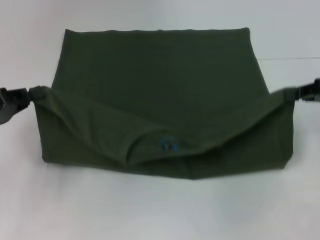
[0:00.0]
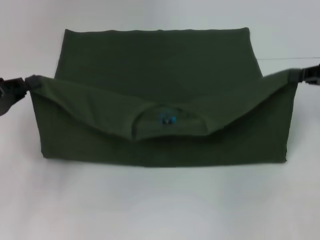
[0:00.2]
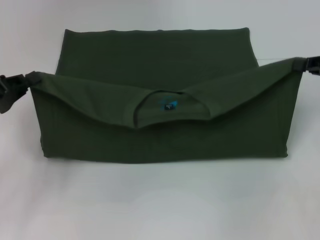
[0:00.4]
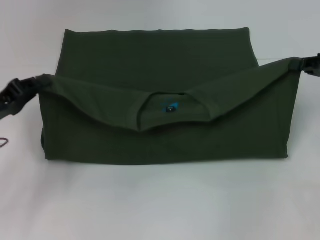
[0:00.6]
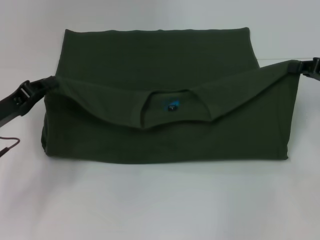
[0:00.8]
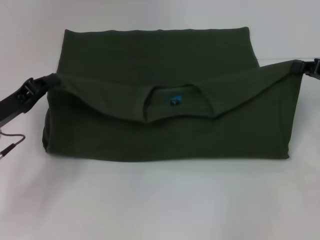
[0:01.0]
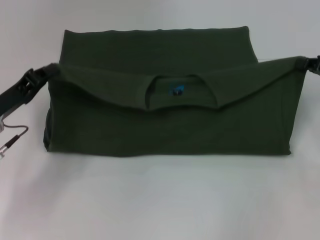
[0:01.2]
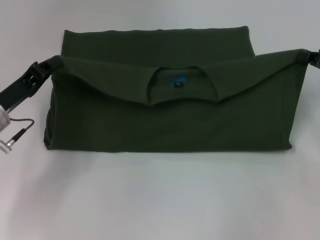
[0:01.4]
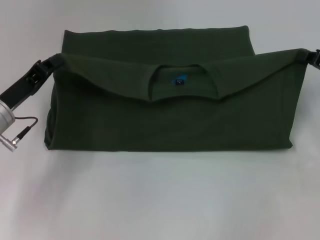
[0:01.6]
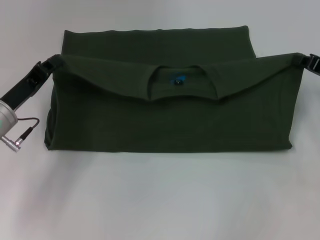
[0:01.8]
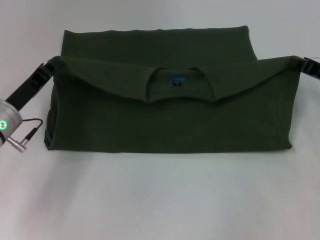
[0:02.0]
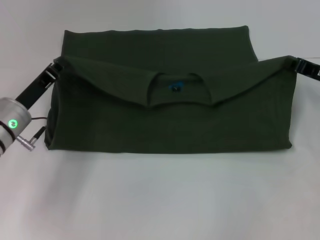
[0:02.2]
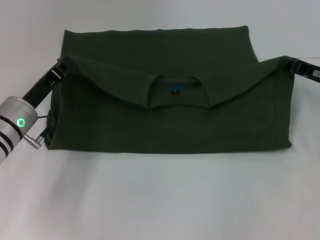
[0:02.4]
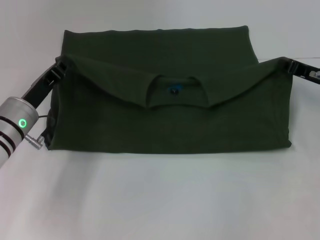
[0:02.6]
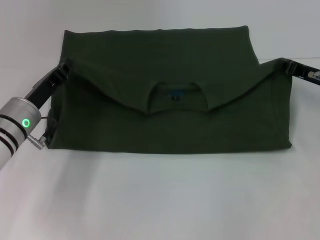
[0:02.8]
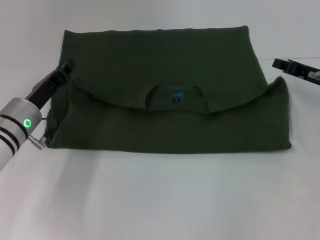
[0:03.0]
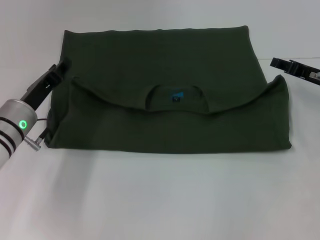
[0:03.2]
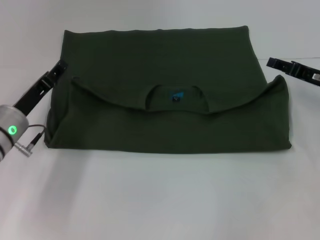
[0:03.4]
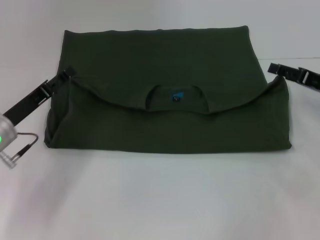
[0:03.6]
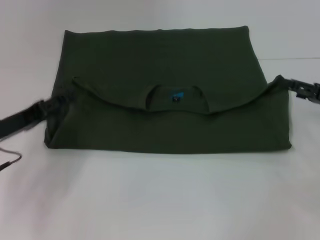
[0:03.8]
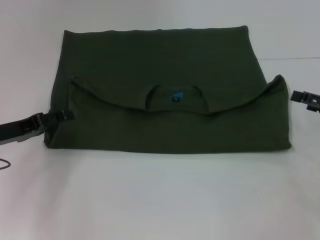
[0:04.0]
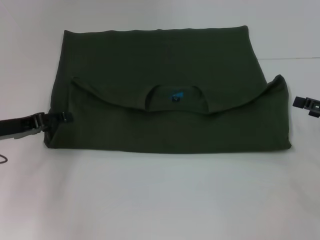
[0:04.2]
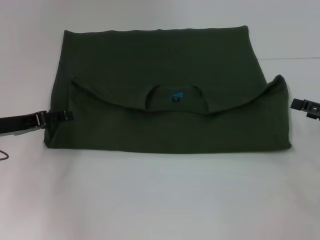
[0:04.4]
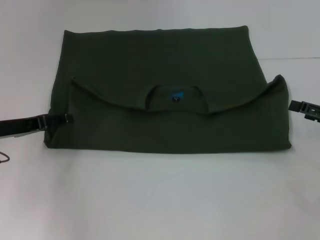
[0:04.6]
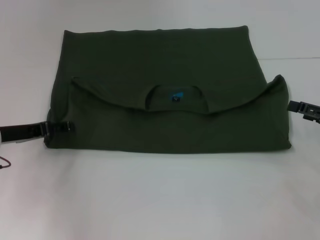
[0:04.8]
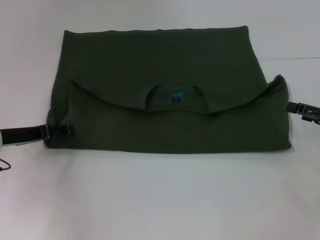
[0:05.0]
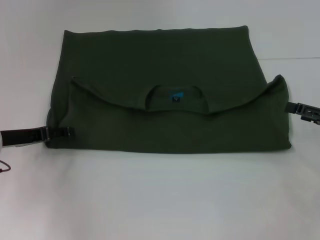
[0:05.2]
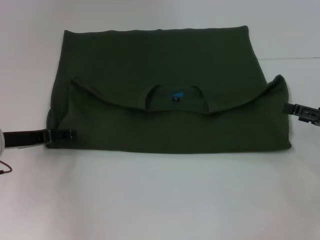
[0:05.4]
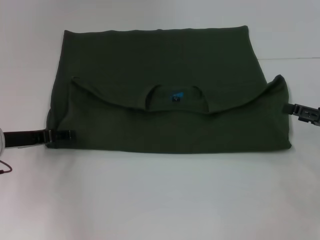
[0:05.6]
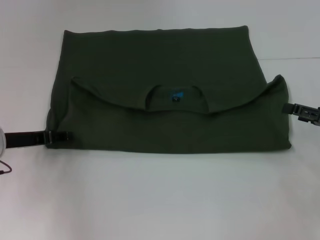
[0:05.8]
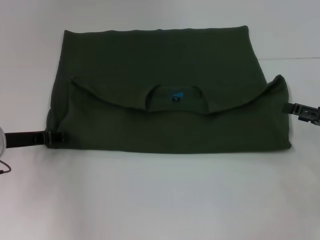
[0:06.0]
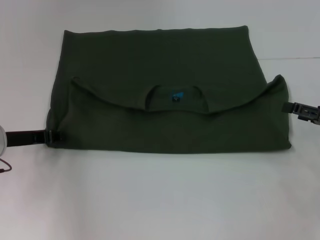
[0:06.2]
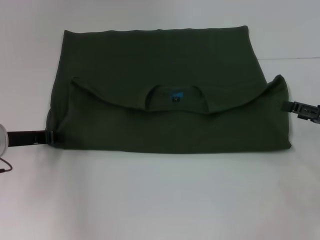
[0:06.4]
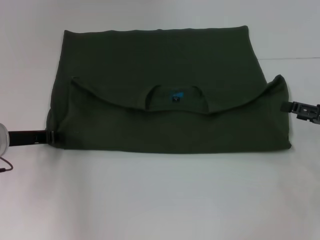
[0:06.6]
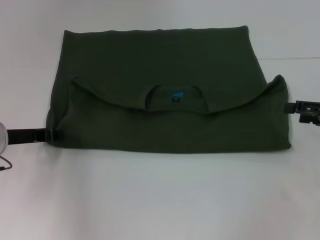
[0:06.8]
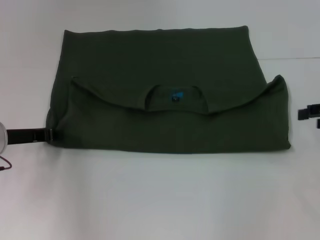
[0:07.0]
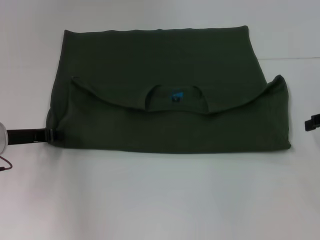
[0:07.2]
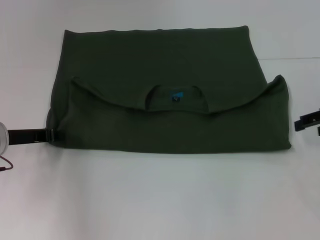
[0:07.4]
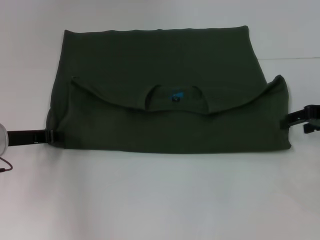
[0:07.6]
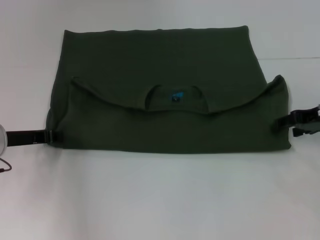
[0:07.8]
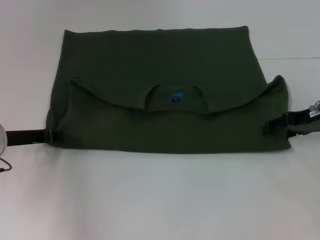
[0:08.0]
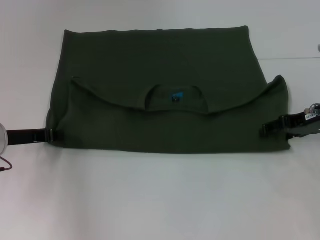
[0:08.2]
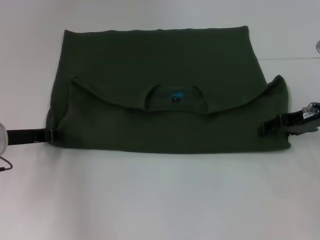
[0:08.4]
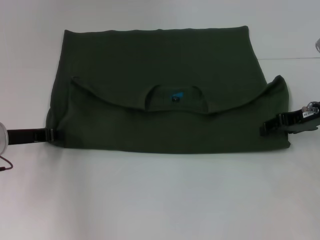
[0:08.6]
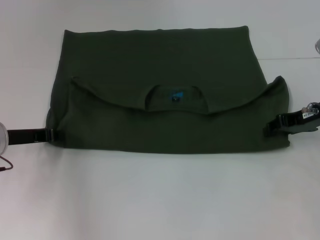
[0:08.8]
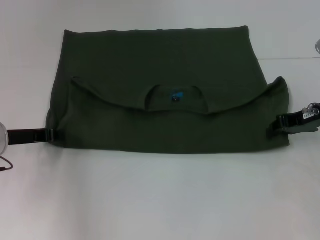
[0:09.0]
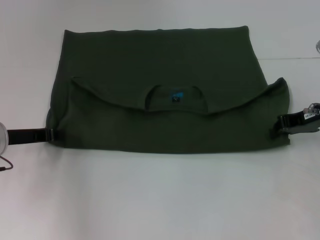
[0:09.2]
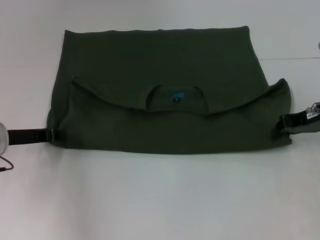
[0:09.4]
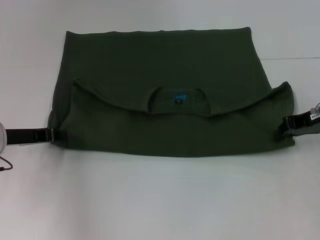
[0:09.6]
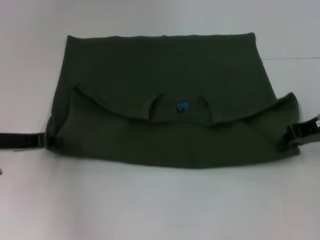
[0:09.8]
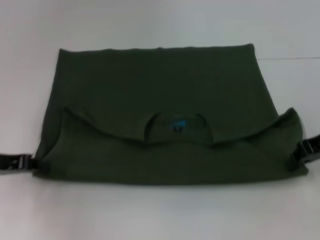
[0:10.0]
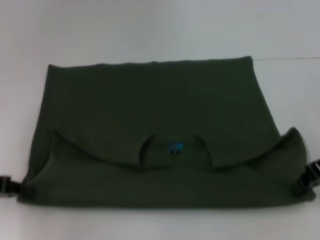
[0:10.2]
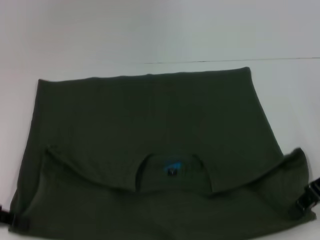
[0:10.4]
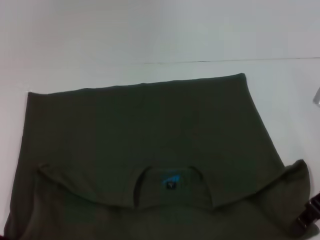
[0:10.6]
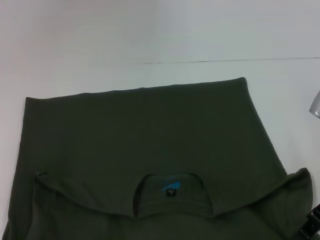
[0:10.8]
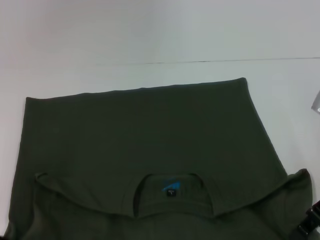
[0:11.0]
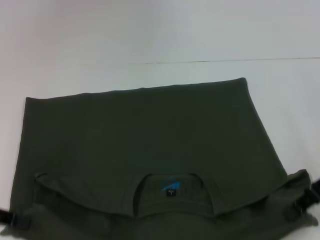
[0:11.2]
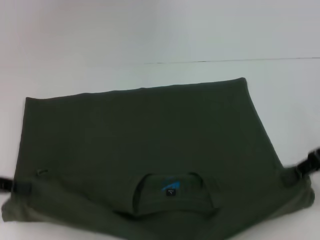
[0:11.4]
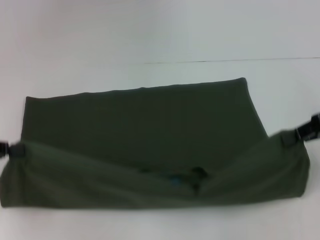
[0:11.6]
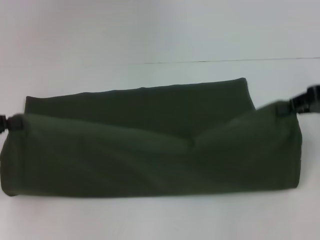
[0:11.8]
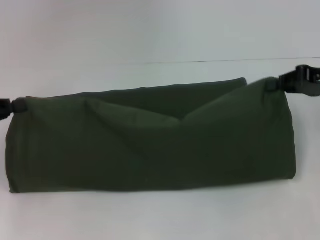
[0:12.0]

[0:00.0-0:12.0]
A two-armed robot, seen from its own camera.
Step, 0.0 to 3.4 s: Fold the clothes with your left hand.
Step, 0.0 to 3.4 s: Fold the clothes with your right hand.
Step, 3.6 to 10.8 s: Pull the clothes with your left hand.
Step, 3.6 to 10.8 s: Pull the clothes with your right hand.
0.0 to 1.6 s: The left gripper moves to the right, approximately 5 cm, while the right gripper shifts by roughly 5 cm.
1.6 to 3.0 s: The right gripper shifts by roughly 5 cm.
3.0 to 4.4 s: The left gripper heads to the left, covering about 5 cm, and opens its fingers. The right gripper shifts some 10 cm backward and to the right, and opens.
4.4 to 6.0 s: The left gripper closes up.
6.0 to 7.6 s: The left gripper closes up. The right gripper heads forward and upward, covering approximately 10 cm.
7.6 to 9.0 s: The right gripper closes.
9.0 to 10.4 s: The left gripper travels backward and to the left by roughly 10 cm. Meanwhile the right gripper travels backward by about 5 cm, and closes up.
10.4 to 12.0 s: The left gripper shifts by about 5 cm. Meanwhile the right gripper goes some 5 cm forward.

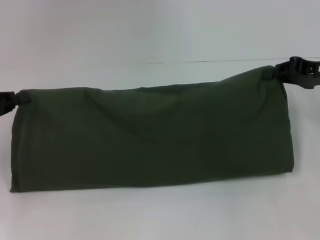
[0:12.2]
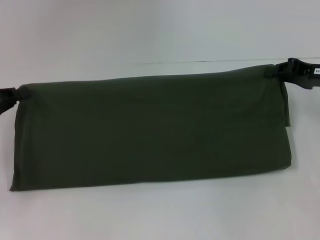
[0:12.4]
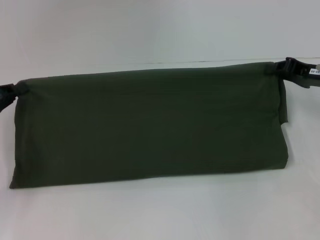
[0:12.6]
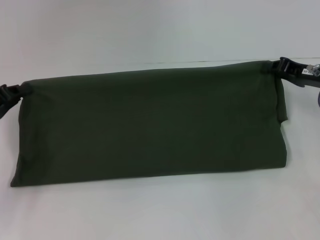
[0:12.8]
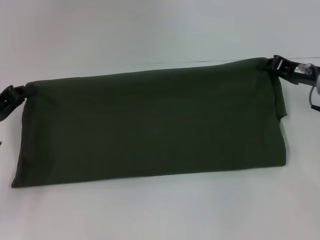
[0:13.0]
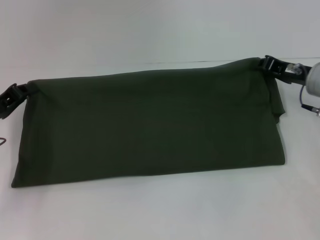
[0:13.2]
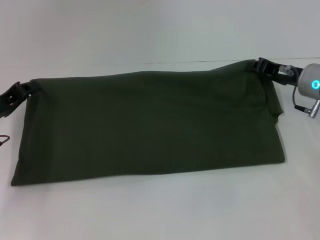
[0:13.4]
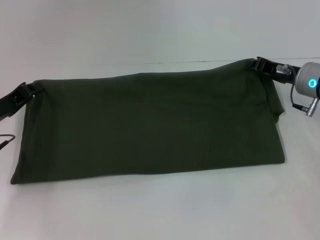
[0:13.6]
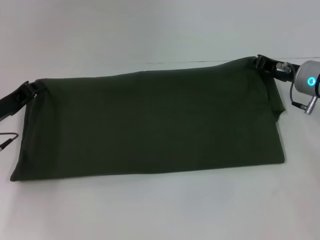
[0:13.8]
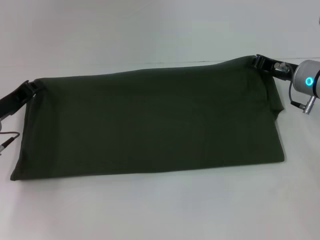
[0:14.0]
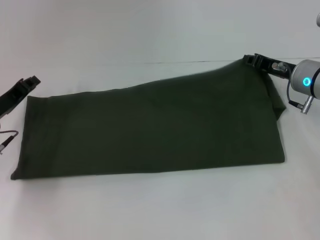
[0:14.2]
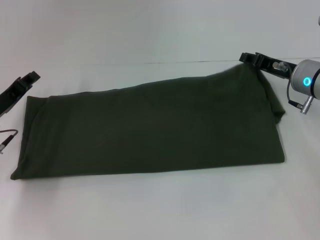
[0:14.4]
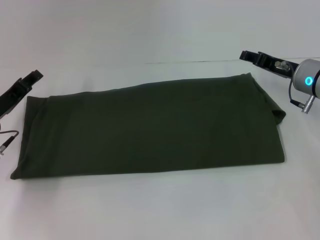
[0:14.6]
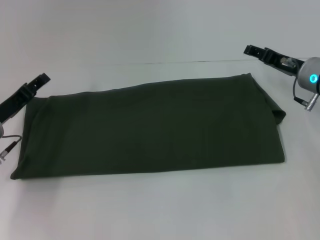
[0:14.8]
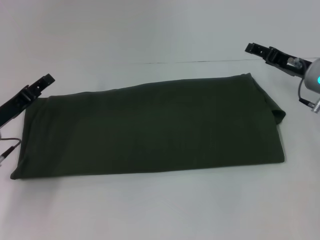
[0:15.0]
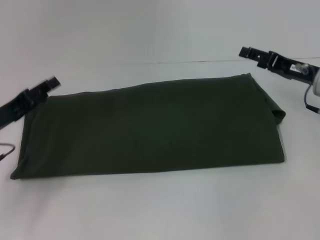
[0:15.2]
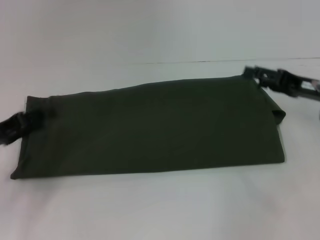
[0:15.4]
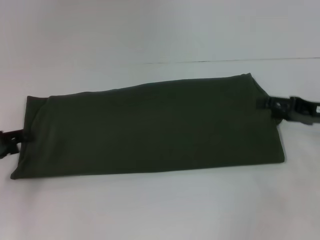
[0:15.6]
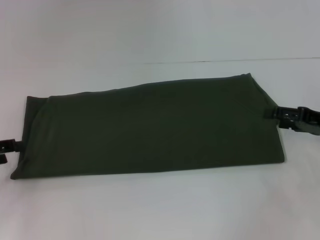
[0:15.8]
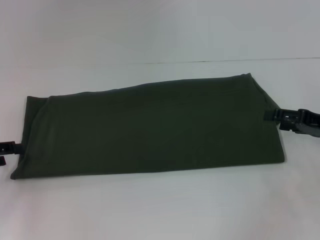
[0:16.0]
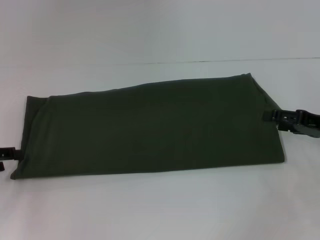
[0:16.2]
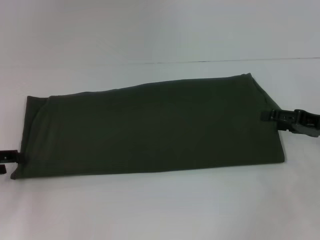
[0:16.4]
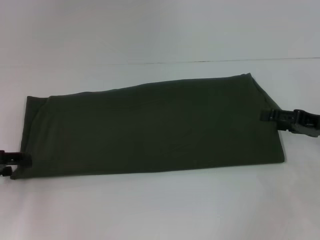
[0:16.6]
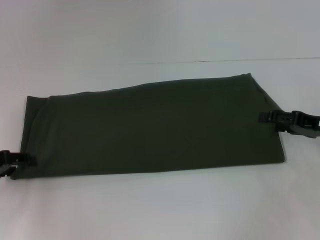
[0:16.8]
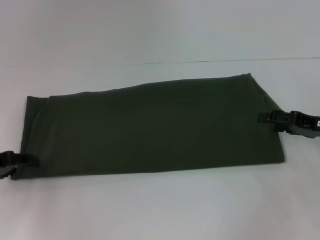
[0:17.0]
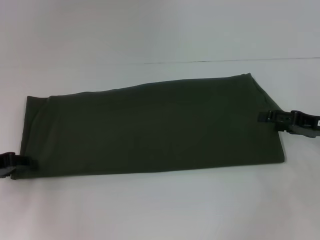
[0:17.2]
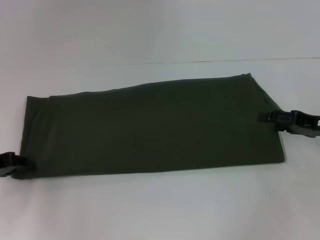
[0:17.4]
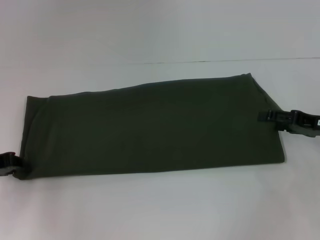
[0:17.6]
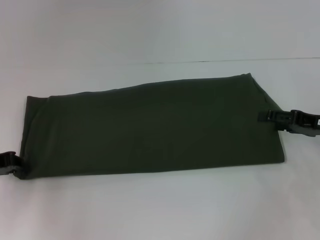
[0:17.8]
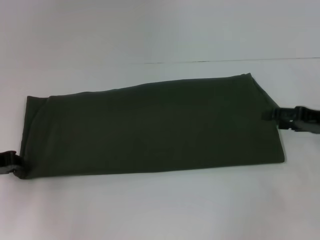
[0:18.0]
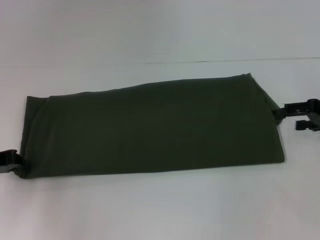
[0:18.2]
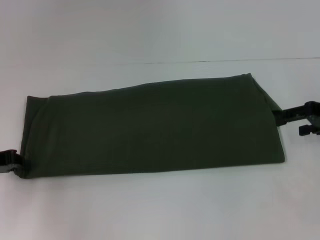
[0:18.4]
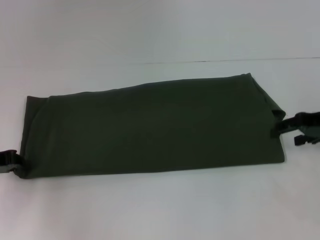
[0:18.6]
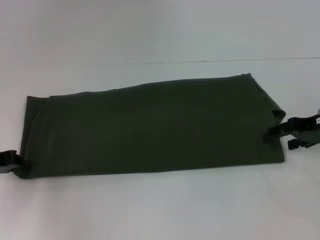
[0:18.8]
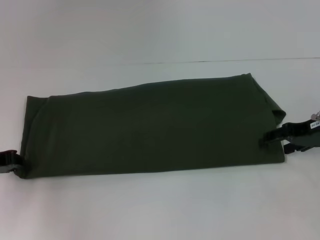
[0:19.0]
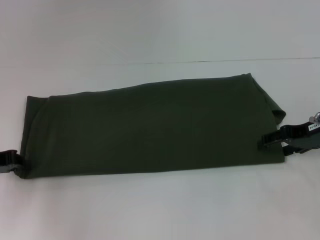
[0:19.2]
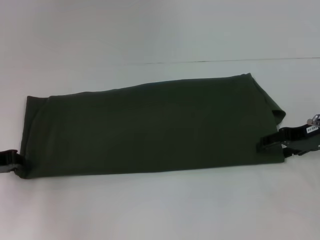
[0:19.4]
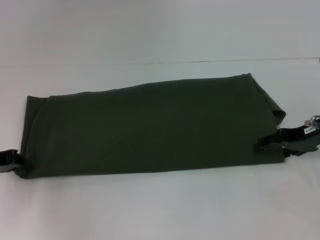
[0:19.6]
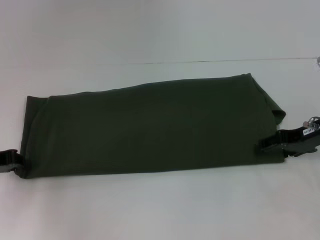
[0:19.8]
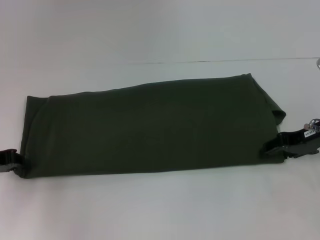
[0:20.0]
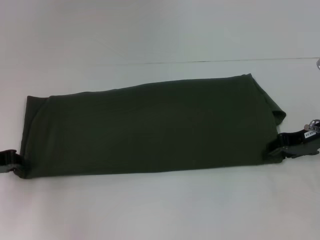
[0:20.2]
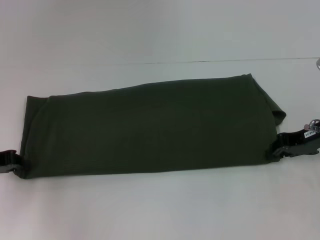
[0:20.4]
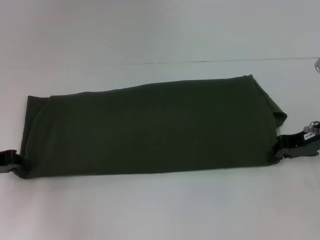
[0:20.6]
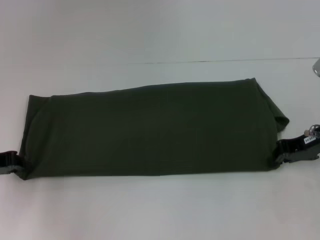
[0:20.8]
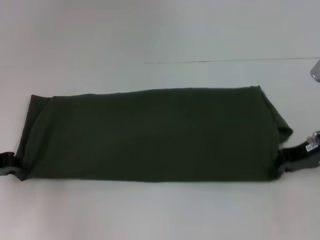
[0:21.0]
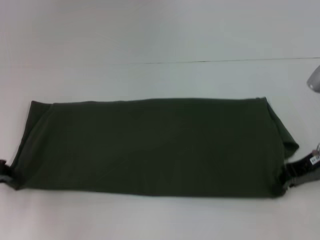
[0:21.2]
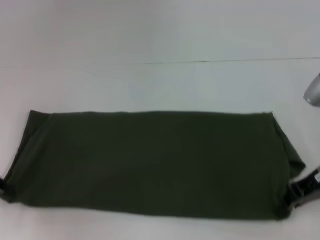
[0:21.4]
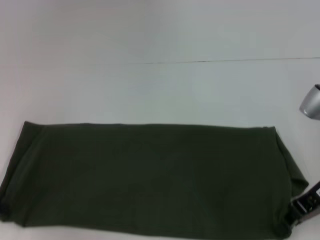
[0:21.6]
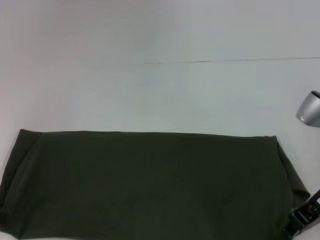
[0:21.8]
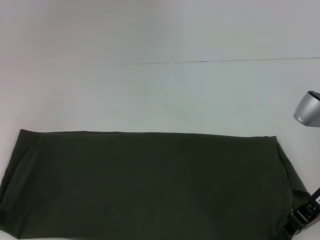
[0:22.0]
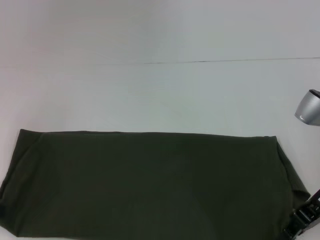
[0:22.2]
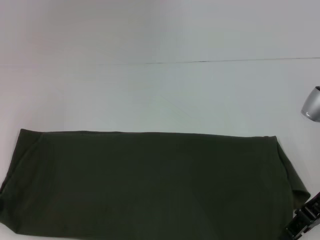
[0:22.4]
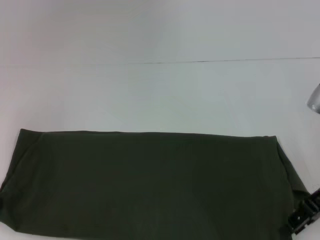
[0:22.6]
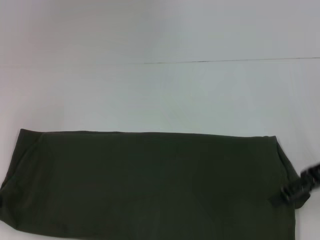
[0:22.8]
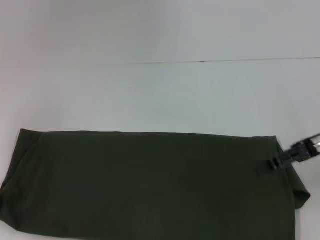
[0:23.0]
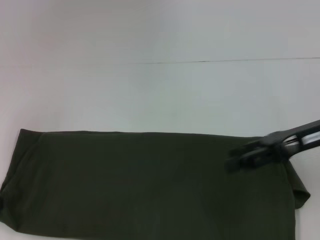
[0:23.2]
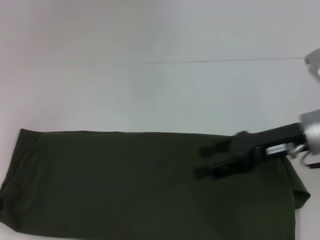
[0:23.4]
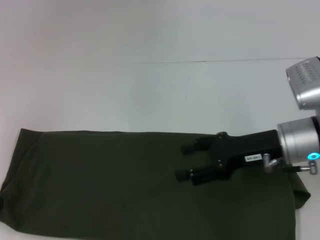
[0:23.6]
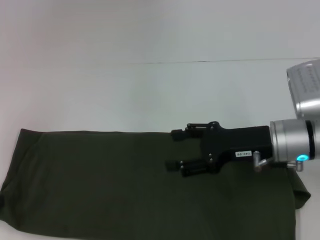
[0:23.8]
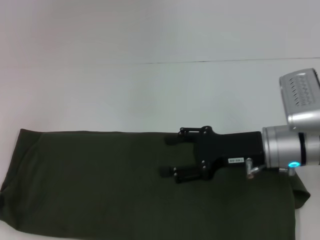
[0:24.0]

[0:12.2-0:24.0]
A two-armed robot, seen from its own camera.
Step, 12.2 to 14.6 s: Fold the clothes with your left hand.
Step, 12.2 to 14.6 s: Fold the clothes with your right hand.
Step, 14.8 to 22.0 s: Pull the clothes with your left hand.
Step, 14.8 to 22.0 s: Pull the clothes with your right hand.
12.2 to 13.6 s: The right gripper travels to the left and downward by about 10 cm; the left gripper moves downward and to the right, some 10 cm.
13.6 to 15.2 s: The right gripper opens up. The left gripper opens its fingers.
15.2 to 16.6 s: The right gripper goes about 10 cm backward and to the right, while the left gripper heads to the left, covering approximately 5 cm.
16.6 to 18.2 s: The right gripper changes place by some 5 cm.
18.2 to 19.6 s: The right gripper goes roughly 5 cm to the left.
19.6 to 21.0 s: The right gripper closes up.
21.0 to 22.6 s: The left gripper changes place by about 5 cm.
22.6 to 24.0 s: The right gripper goes some 10 cm to the left, and opens up.
